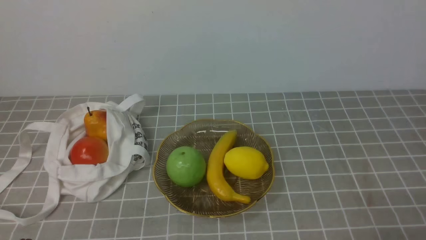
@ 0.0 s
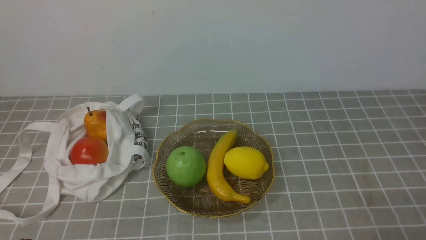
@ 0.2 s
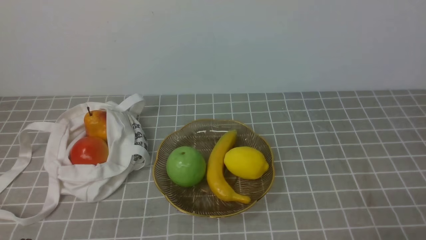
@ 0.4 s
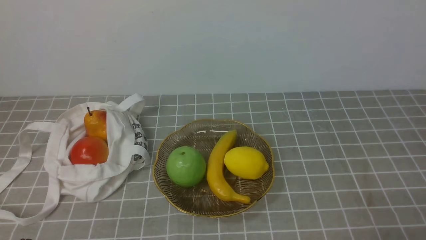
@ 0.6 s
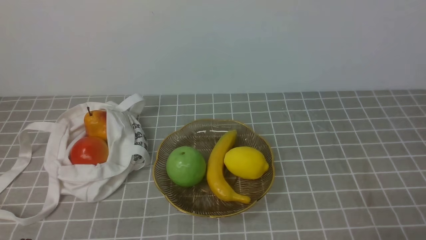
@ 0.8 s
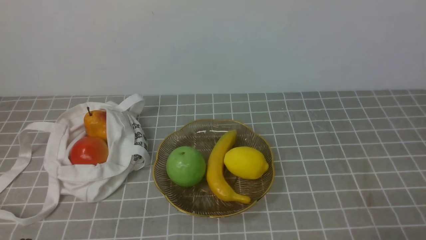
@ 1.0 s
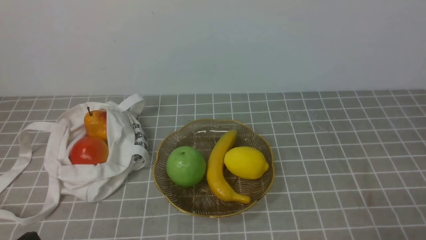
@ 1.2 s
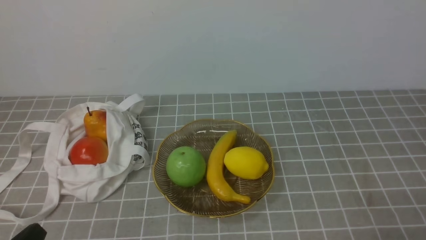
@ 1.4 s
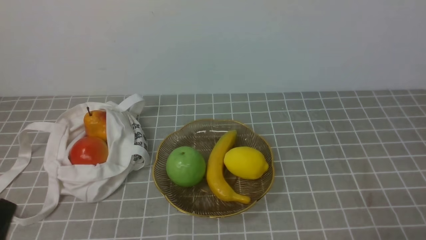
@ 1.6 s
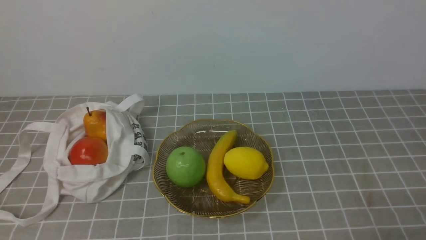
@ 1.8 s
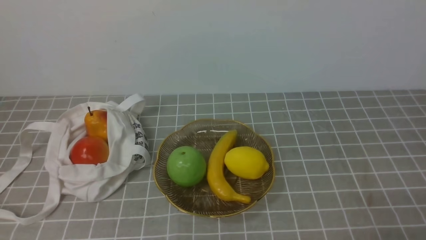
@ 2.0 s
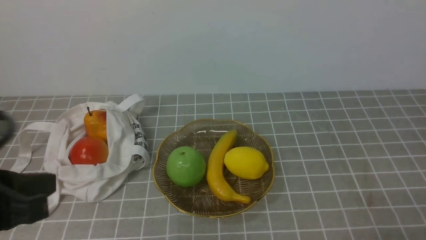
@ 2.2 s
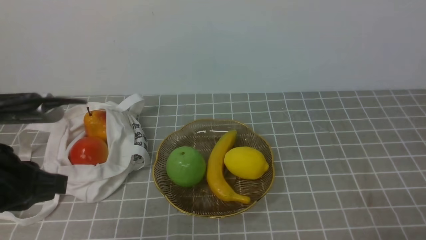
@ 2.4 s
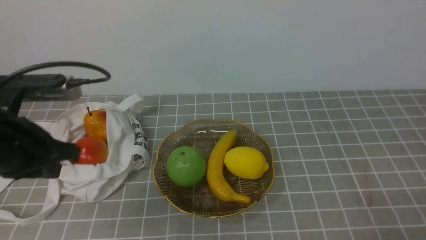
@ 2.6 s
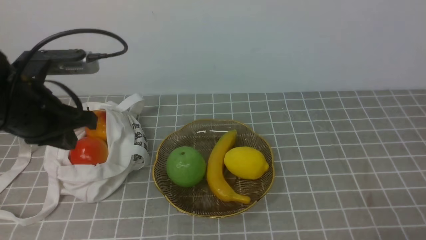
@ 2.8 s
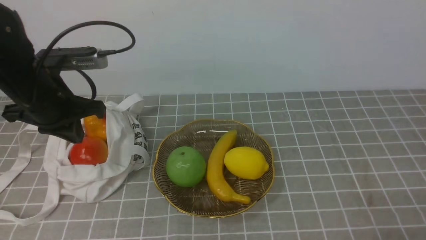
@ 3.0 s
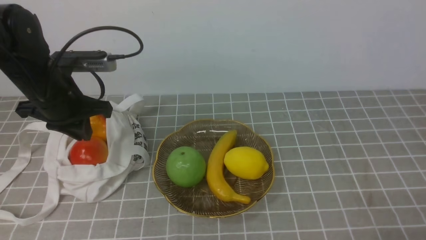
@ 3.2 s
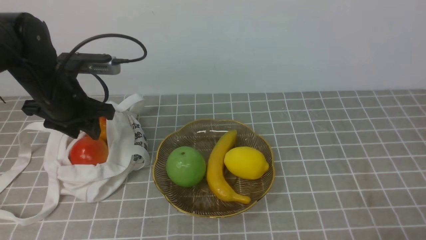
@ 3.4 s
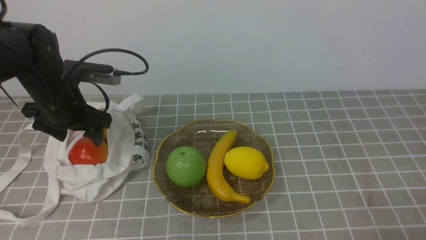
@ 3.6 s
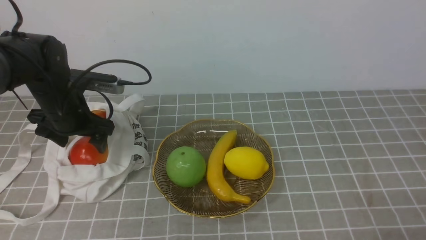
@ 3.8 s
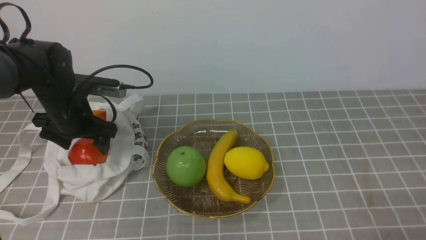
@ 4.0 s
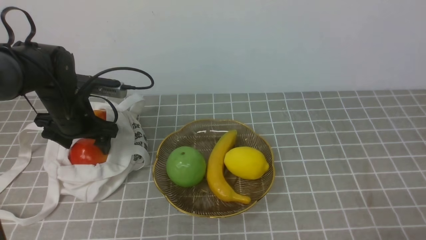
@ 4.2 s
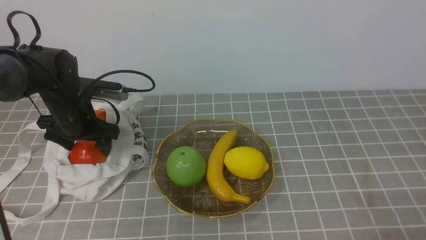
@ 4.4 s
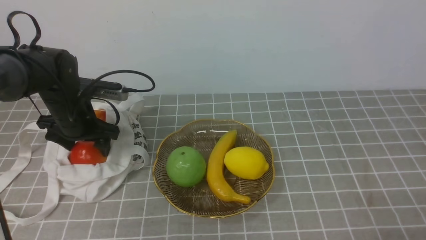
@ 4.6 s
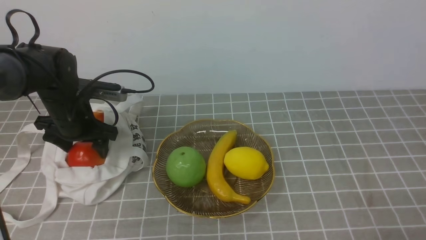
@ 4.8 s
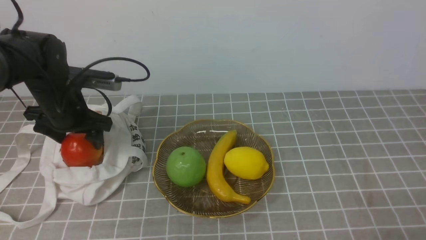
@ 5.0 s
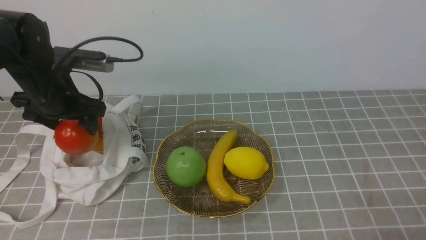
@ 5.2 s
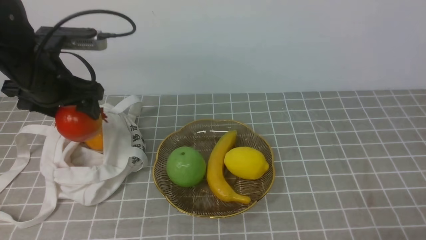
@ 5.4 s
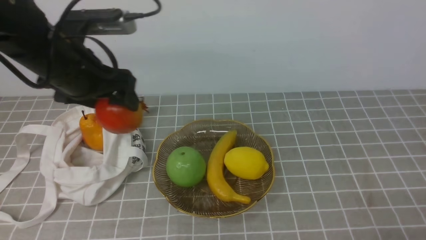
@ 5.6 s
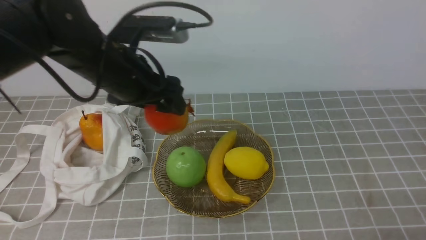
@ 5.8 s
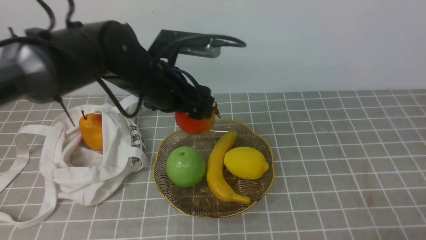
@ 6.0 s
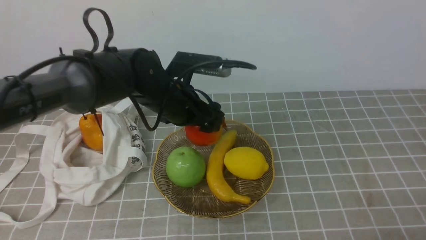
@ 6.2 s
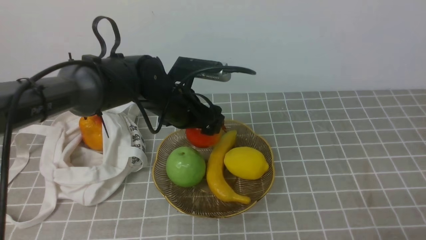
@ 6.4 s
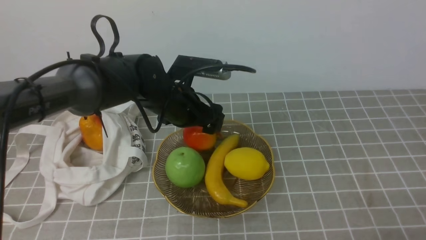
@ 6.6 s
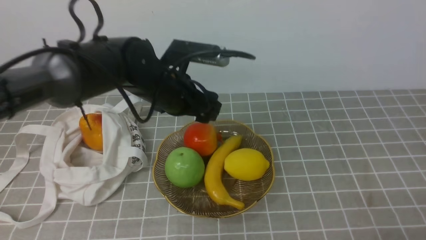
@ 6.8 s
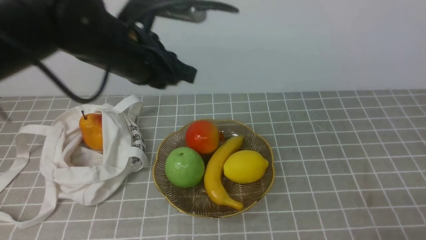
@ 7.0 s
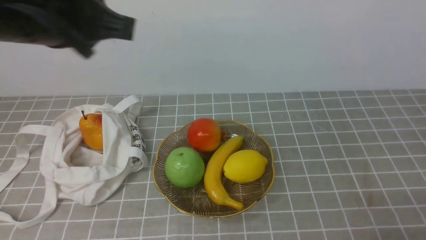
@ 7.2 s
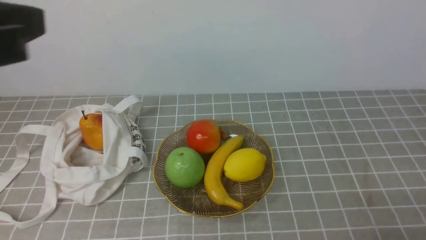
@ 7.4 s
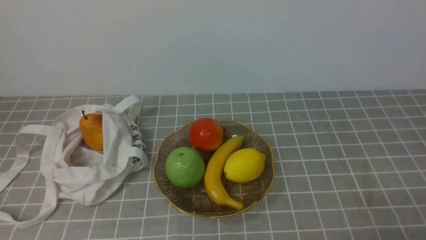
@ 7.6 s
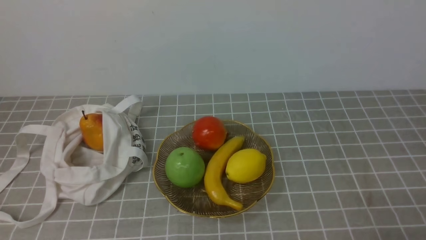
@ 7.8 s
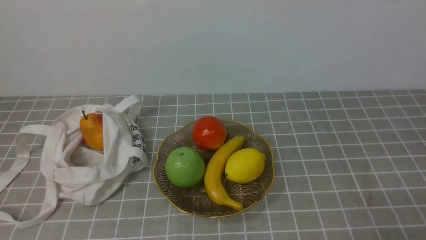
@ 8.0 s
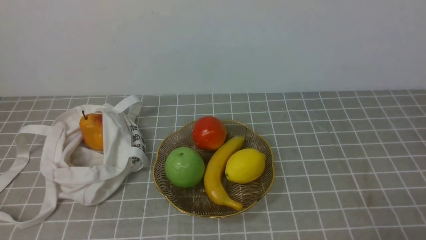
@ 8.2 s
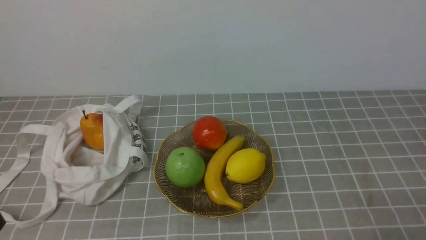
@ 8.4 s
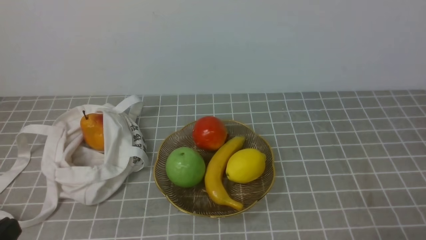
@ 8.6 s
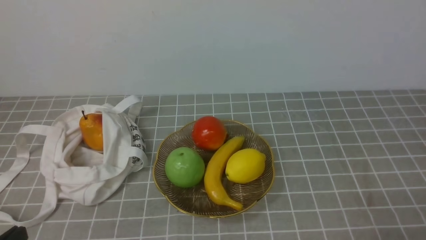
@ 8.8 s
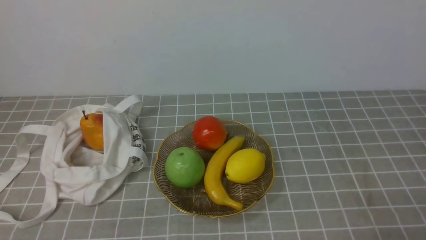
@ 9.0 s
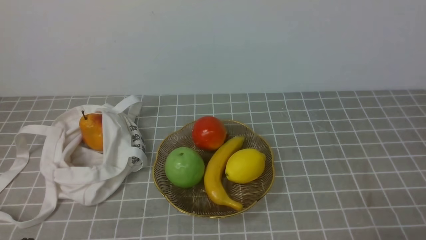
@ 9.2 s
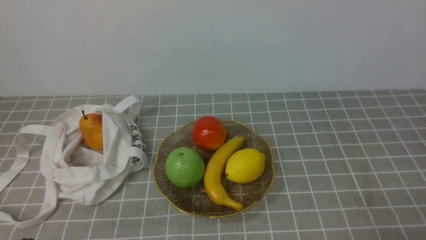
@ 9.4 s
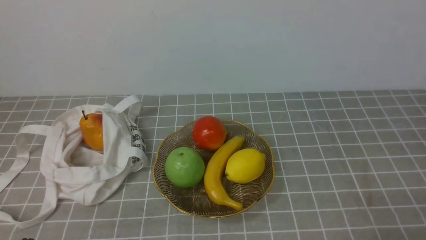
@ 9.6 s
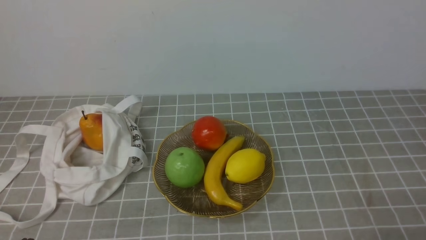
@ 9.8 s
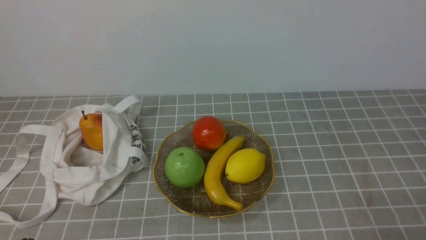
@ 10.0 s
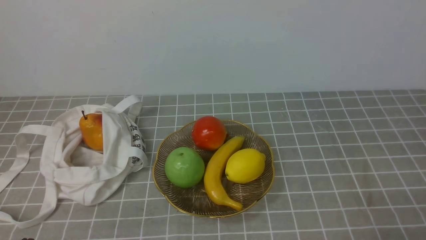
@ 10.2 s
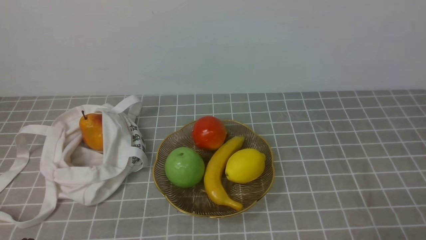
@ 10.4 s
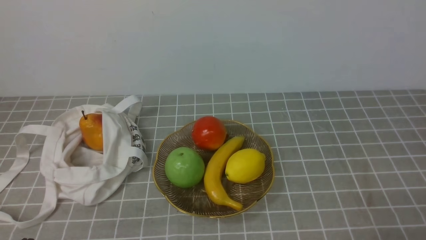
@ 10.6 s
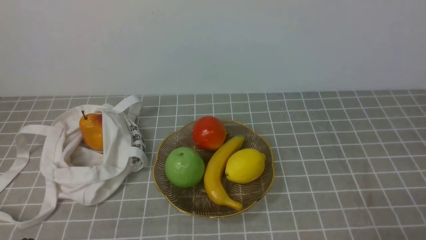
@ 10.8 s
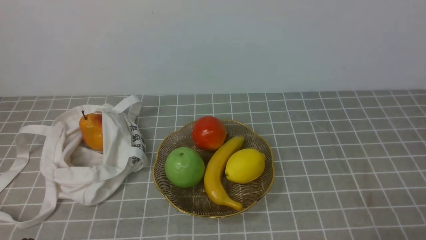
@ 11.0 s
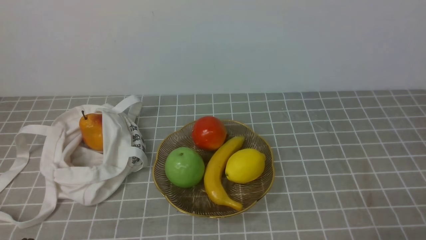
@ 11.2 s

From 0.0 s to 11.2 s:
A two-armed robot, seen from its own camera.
Step, from 0.0 s to 4.8 s: use the left arm to grab a pomegranate from the bag.
Step, from 5.0 s to 6.6 s: use the left arm to put the pomegranate into the empty plate on the right.
From 1.6 s to 3.2 s: The left gripper travels forward by approximately 30 cm.
From 3.2 s to 4.8 s: The left gripper goes some 5 cm downward, and opens its fingers.
From 4.8 s to 6.4 s: The left gripper shifts about 20 cm to the right.
From 6.4 s to 8.0 s: The left gripper moves backward and to the left, about 40 cm, and closes up.
From 9.6 s to 11.2 s: Both grippers stay about where they are.

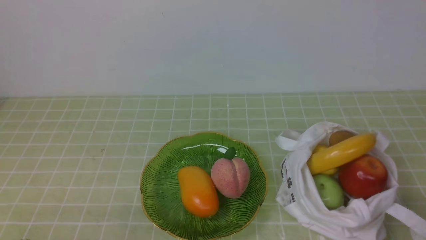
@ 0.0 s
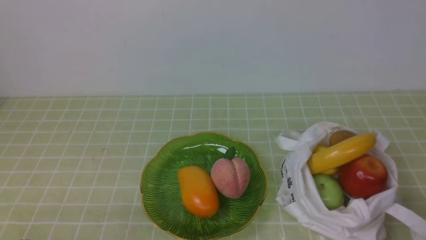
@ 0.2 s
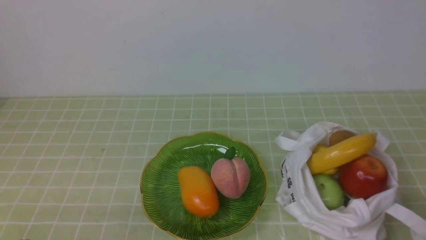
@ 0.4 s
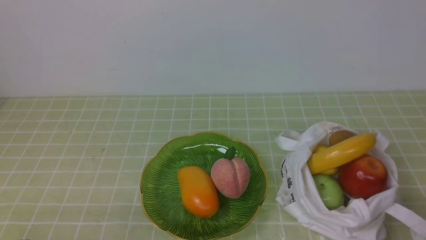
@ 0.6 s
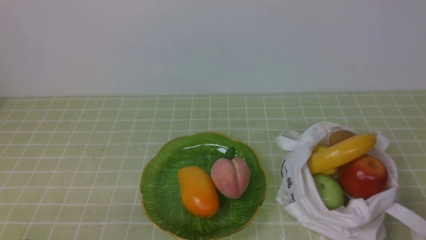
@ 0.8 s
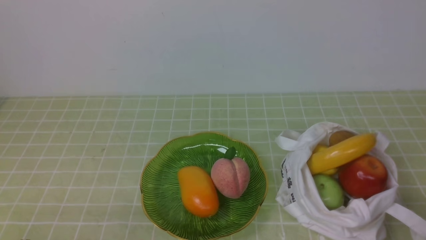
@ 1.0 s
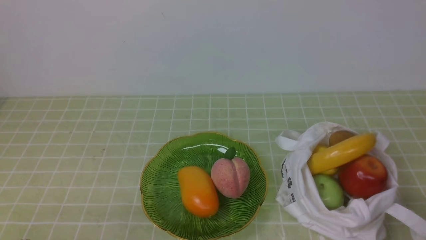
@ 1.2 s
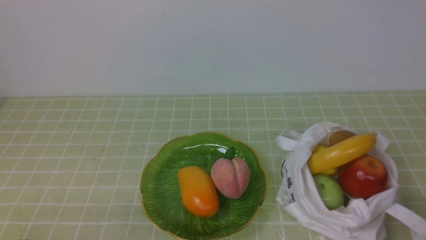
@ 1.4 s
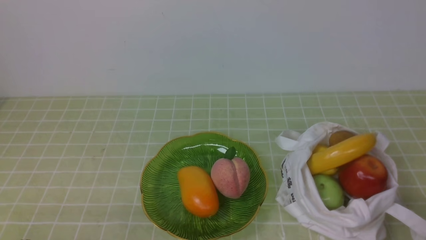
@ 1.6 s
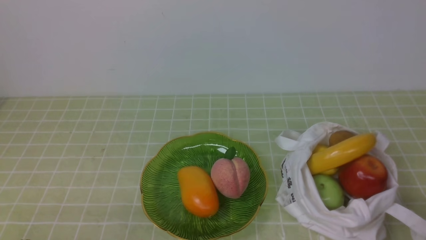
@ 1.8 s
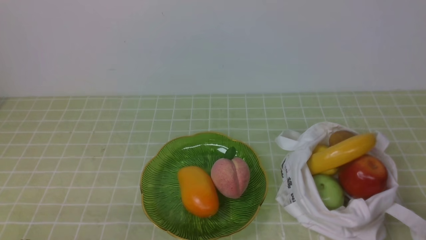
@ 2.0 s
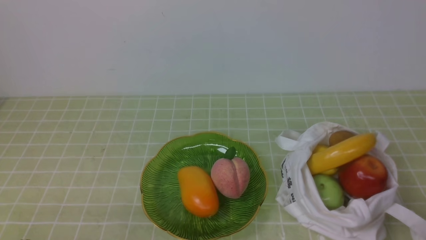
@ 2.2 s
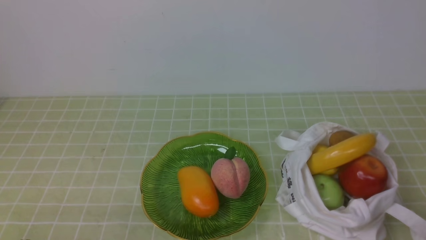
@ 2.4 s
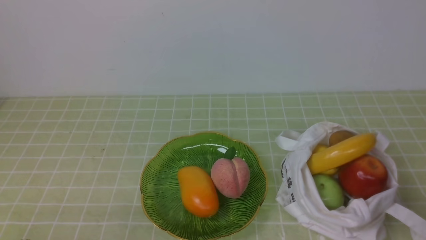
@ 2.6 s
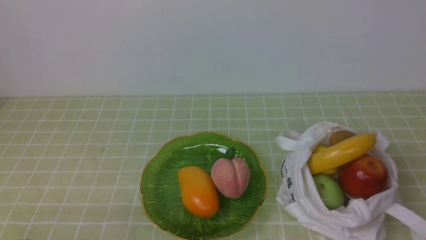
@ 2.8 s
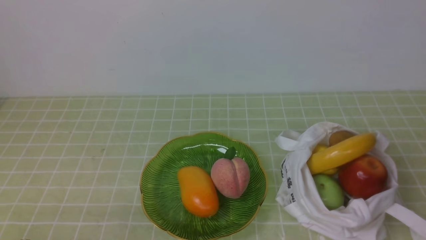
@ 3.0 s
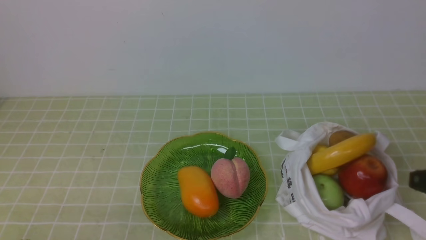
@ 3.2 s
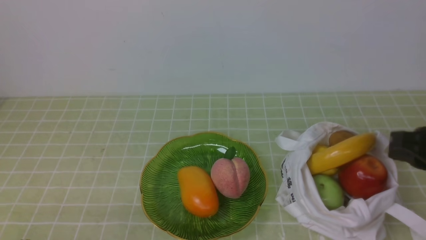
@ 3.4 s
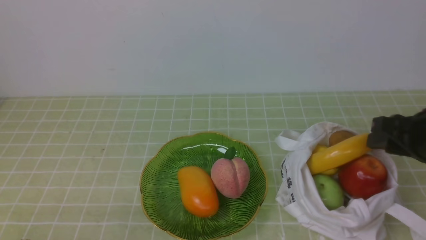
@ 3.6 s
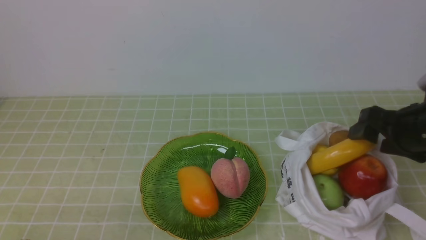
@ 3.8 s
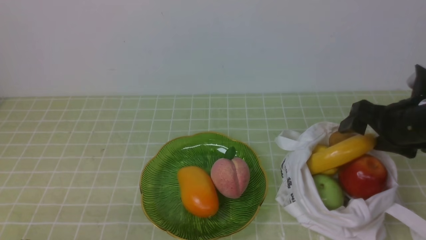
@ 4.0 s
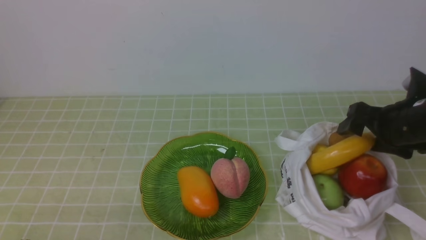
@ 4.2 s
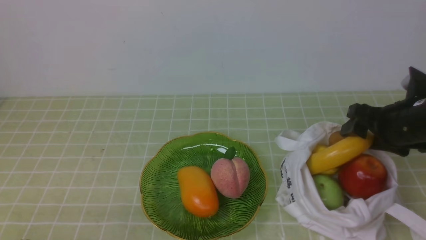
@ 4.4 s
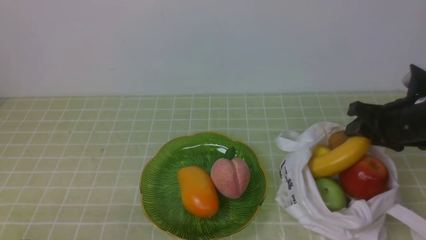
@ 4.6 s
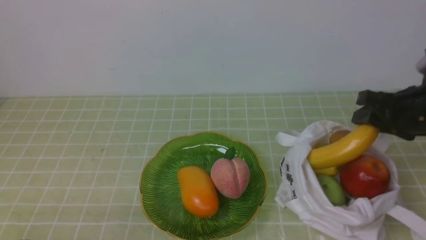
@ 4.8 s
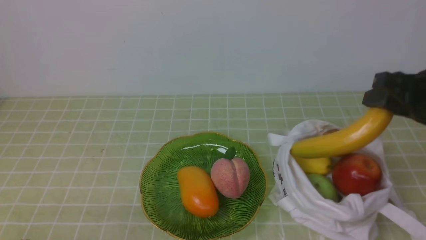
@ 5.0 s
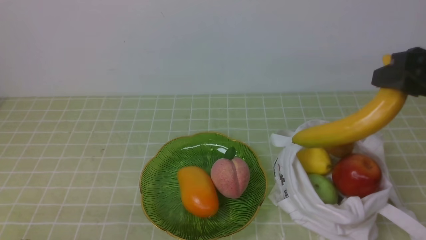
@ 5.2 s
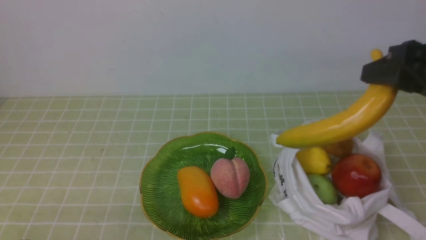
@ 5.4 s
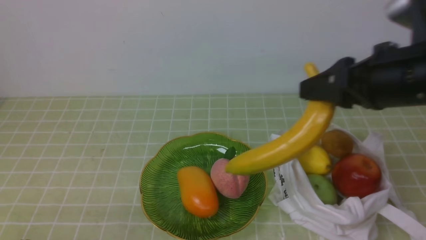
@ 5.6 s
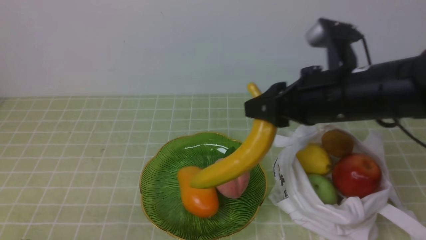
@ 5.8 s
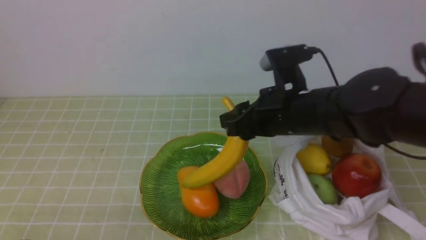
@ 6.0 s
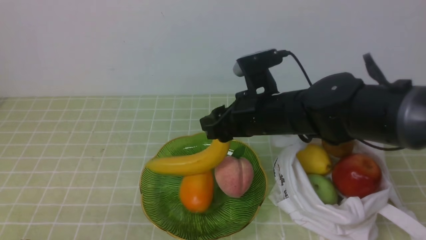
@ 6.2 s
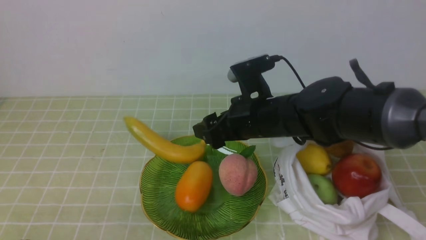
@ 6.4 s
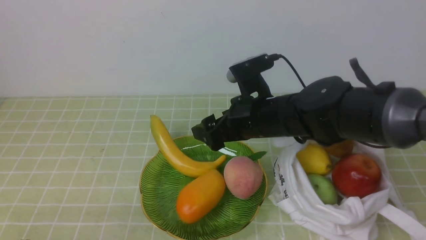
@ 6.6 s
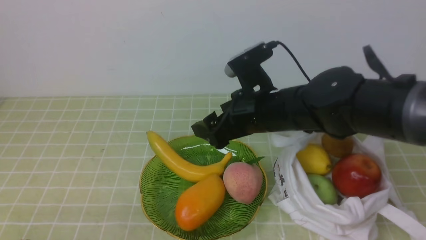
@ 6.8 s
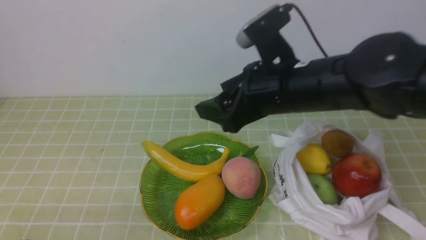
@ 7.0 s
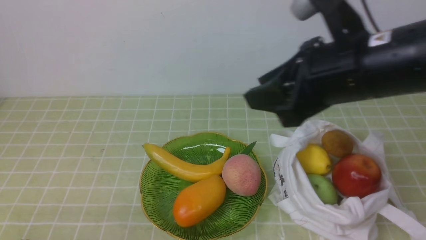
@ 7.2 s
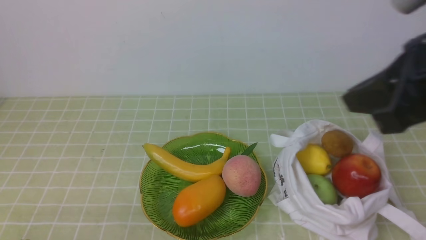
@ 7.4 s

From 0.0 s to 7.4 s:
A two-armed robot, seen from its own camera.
Step, from 0.0 s to 4.2 s: use the right arm to grab a banana from the bag.
Step, from 4.4 s to 6.8 s: use the right arm to put the banana into the empty plate on the right.
From 3.0 s to 4.4 s: The right gripper moves forward, roughly 25 cm, and opens up.
From 4.4 s to 6.0 s: The right gripper travels to the left by some 15 cm.
From 6.0 s to 7.4 s: The right gripper is displaced upward, backward and to the right by some 15 cm, and opens, then closes again.
